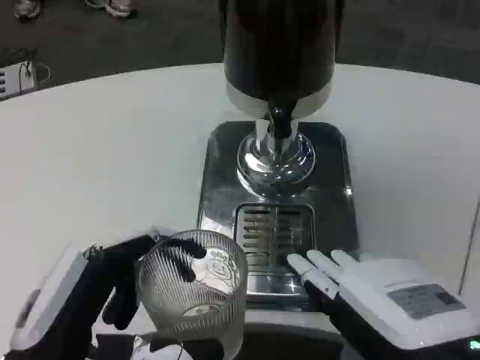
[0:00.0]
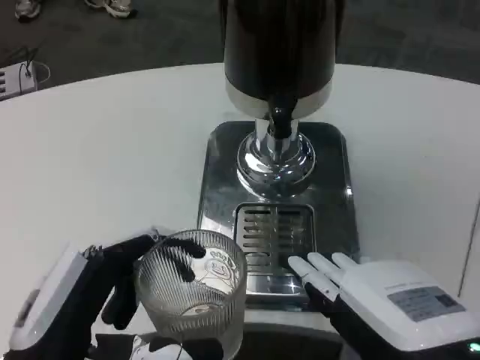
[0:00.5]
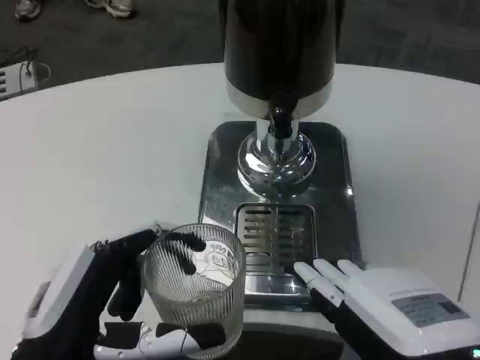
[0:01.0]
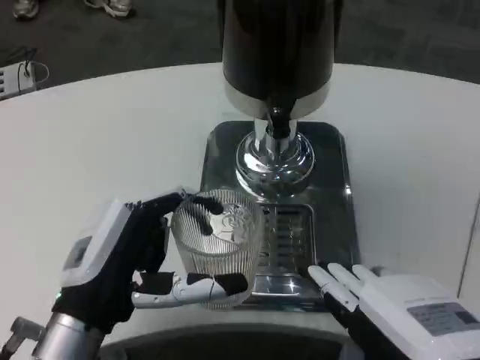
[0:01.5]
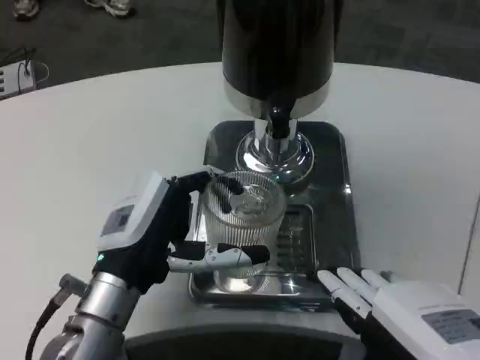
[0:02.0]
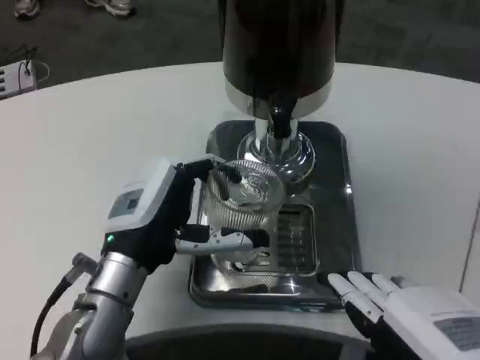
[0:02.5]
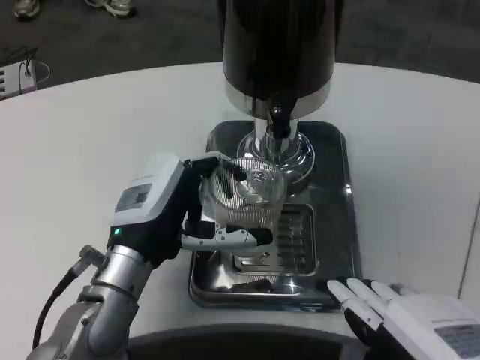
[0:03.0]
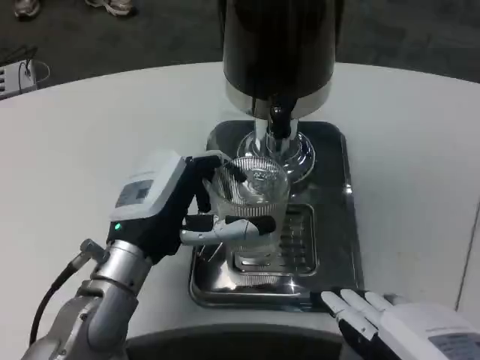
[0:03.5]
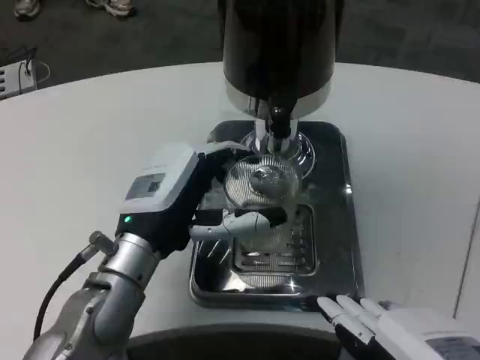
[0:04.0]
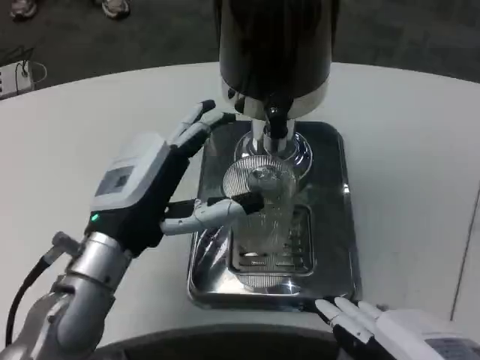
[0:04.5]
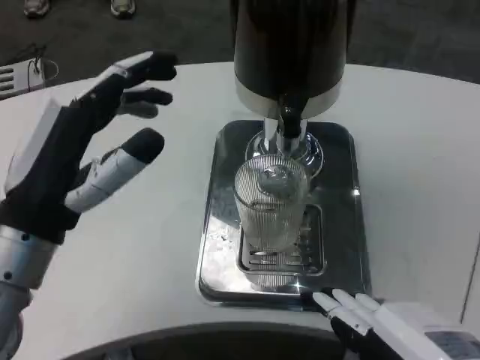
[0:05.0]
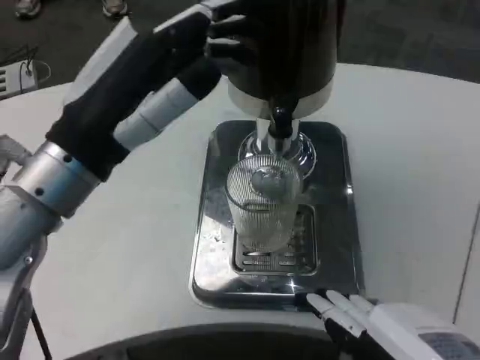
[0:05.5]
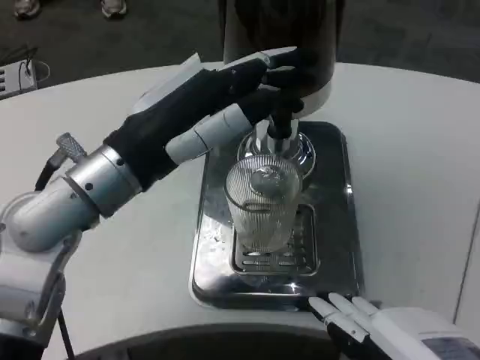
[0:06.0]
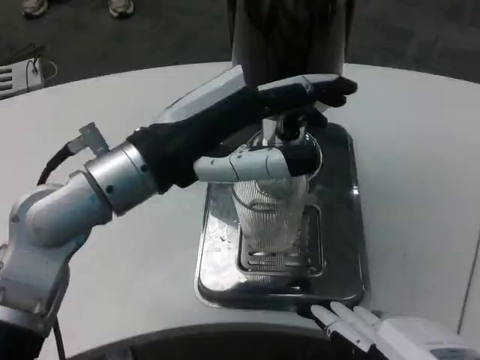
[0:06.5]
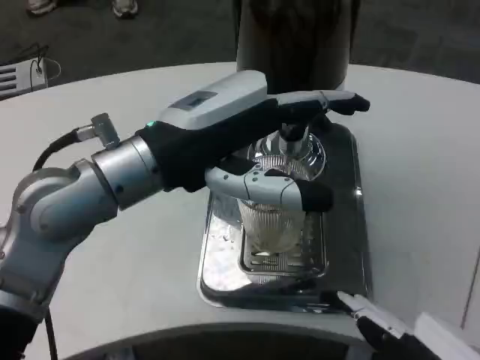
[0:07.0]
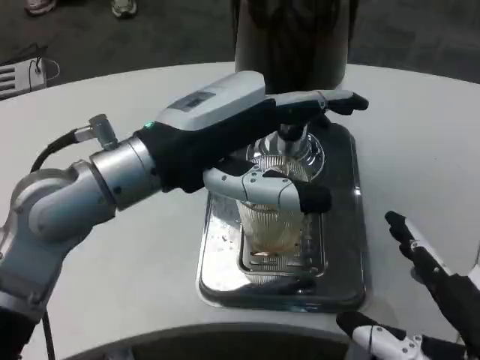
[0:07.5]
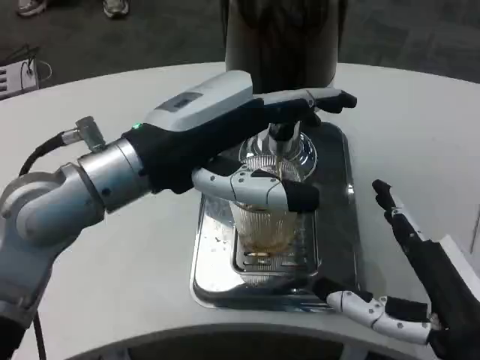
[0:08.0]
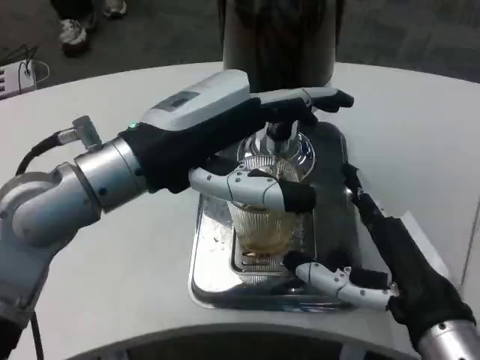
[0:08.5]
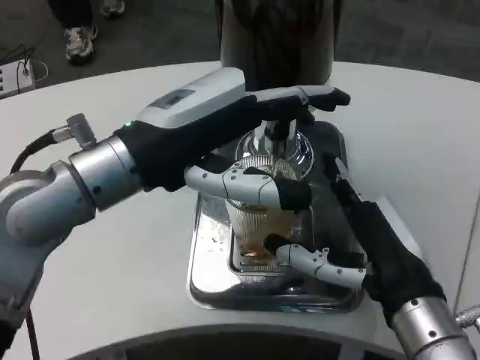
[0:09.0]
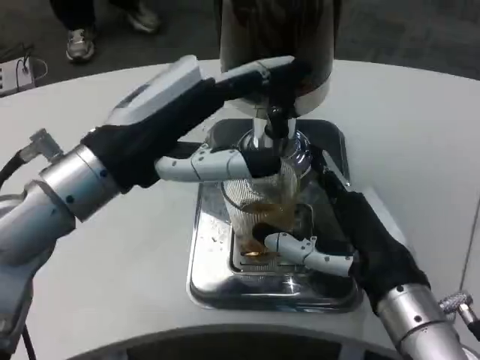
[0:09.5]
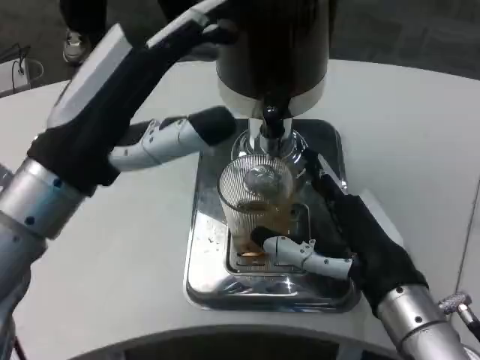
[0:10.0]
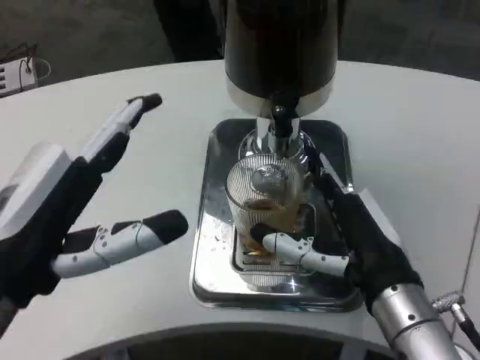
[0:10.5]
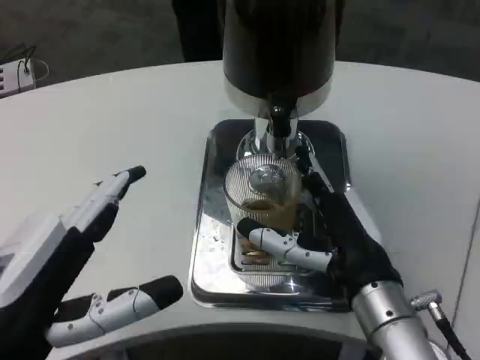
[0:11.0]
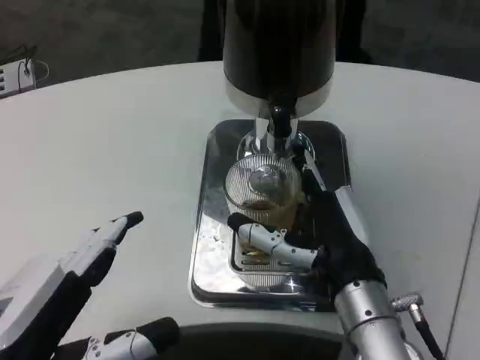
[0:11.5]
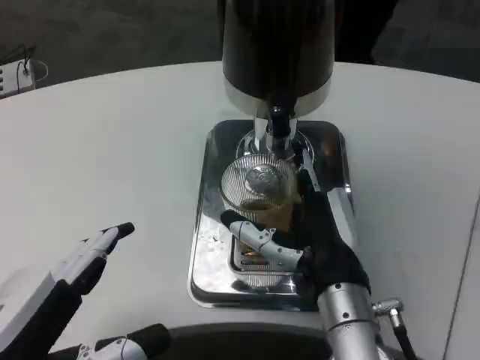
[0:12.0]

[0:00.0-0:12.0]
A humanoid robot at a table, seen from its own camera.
Task of the whole recording: Grasp the cup under the faucet to collect the drink, then remove the cup.
0:00.0 to 0:02.0: The left hand is displaced forward by some 10 cm.
0:04.0 to 0:06.0: The left hand moves upward, approximately 10 cm.
0:06.0 to 0:08.0: The right hand heads forward, covering roughly 5 cm.
0:08.0 to 0:10.0: The right hand goes about 5 cm forward; the left hand changes place by some 5 cm.
0:10.0 to 0:12.0: The right hand is displaced to the left by approximately 5 cm, while the left hand shifts about 15 cm backward and downward.

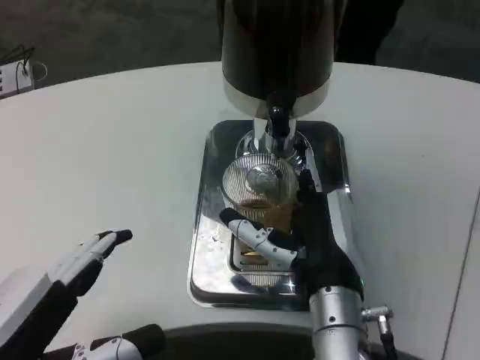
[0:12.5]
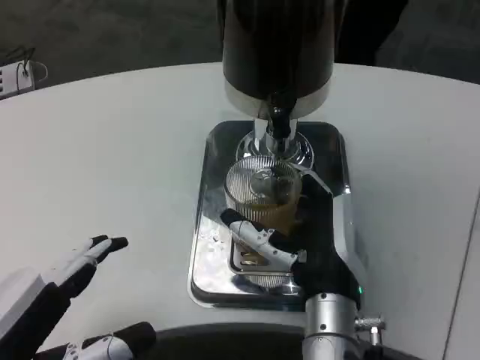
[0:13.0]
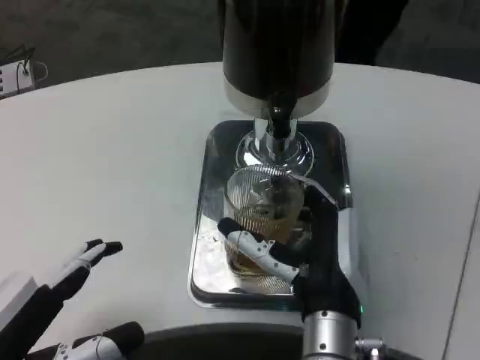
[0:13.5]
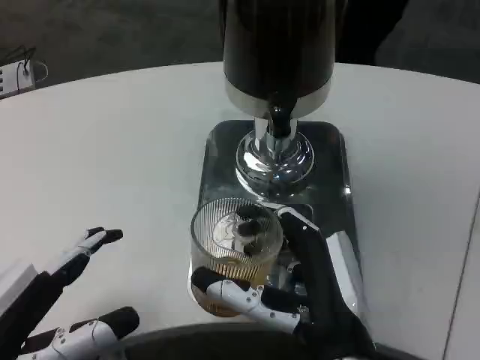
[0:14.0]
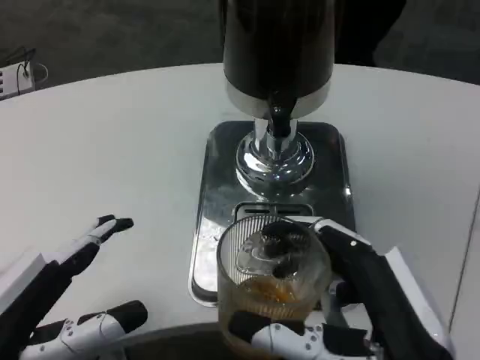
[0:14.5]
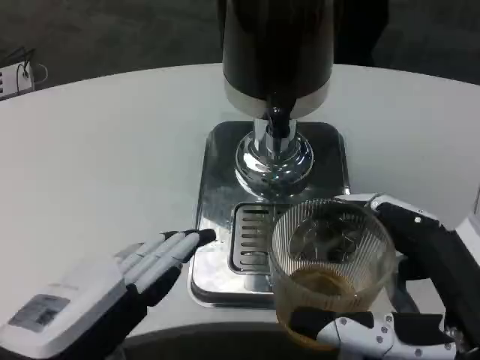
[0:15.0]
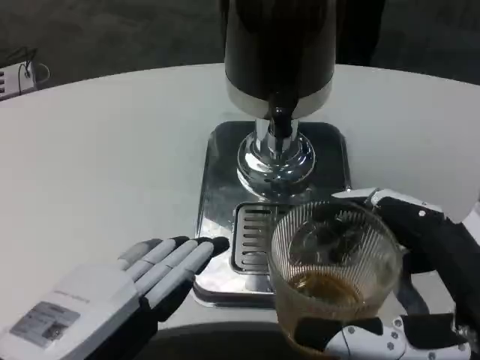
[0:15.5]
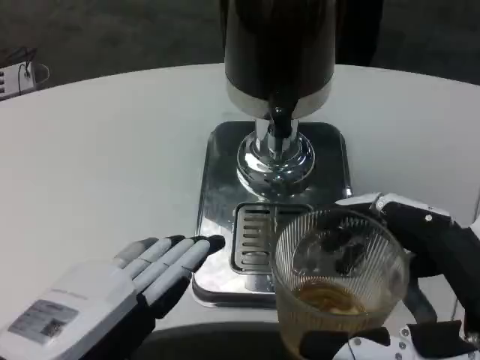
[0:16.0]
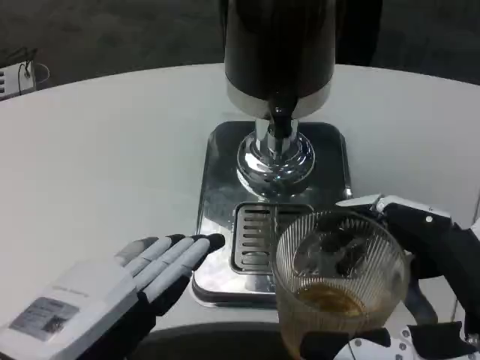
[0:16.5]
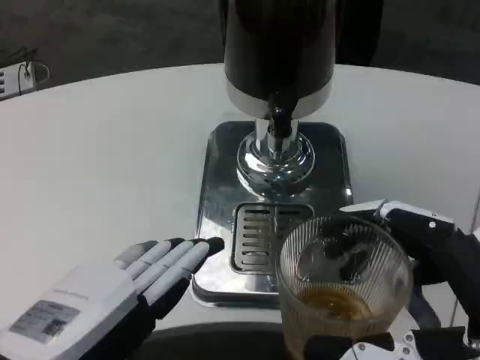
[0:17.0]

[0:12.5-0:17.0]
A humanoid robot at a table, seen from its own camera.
Task of the whole recording: Grasp the cup under the faucet to collect the drink, then remove the cup.
0:12.5 to 0:14.5: The right hand heads backward and to the right, covering roughly 15 cm.
0:14.5 to 0:17.0: The right hand travels to the right by approximately 5 cm, while the left hand ends up roughly 5 cm from where it was.

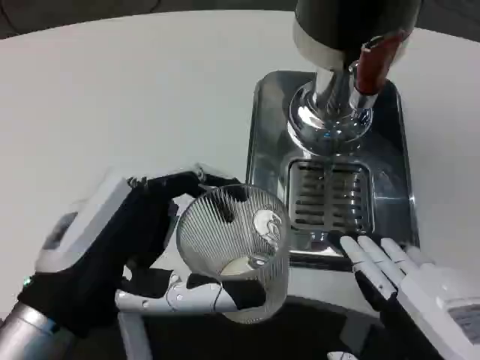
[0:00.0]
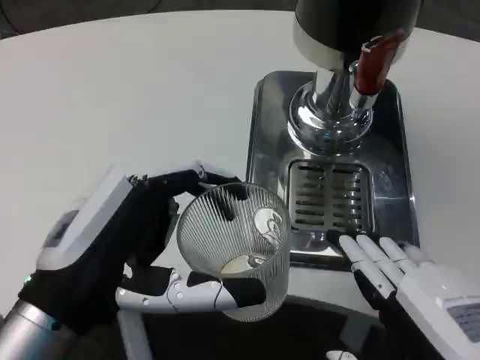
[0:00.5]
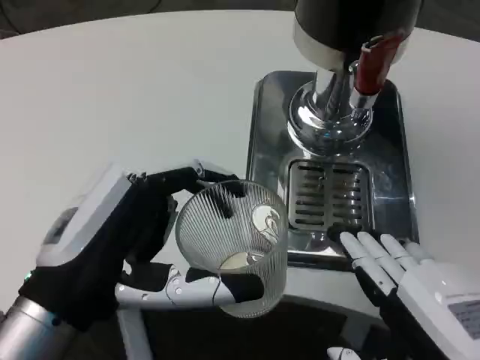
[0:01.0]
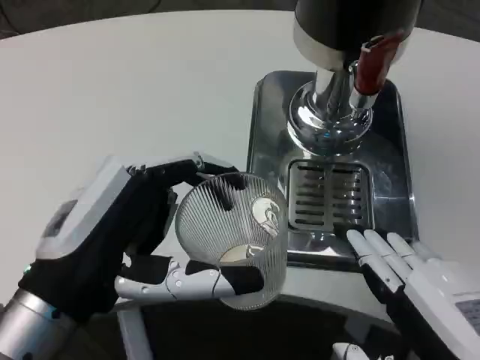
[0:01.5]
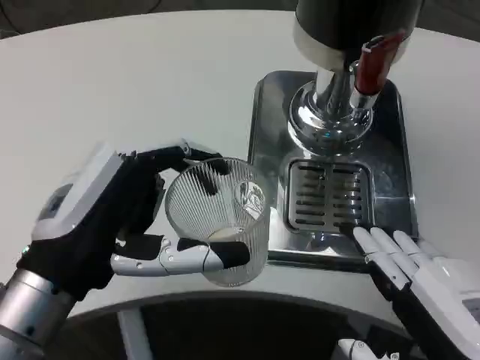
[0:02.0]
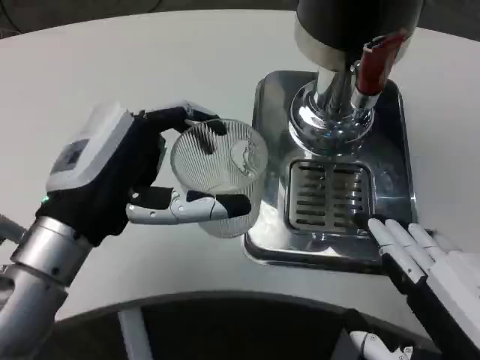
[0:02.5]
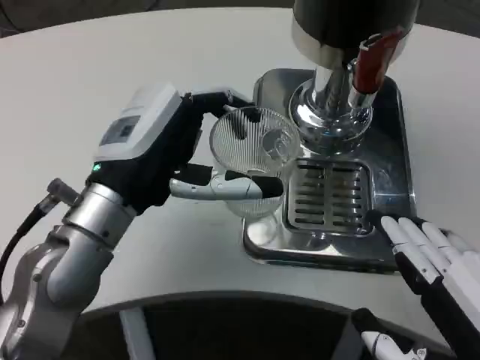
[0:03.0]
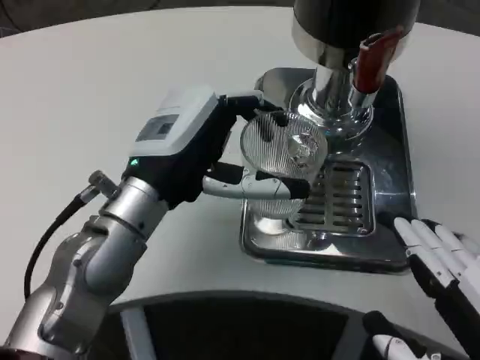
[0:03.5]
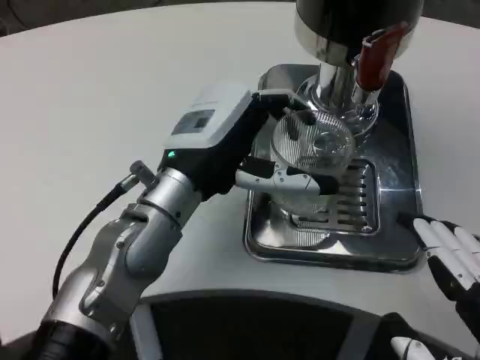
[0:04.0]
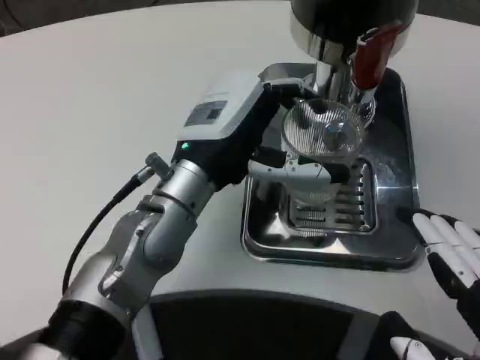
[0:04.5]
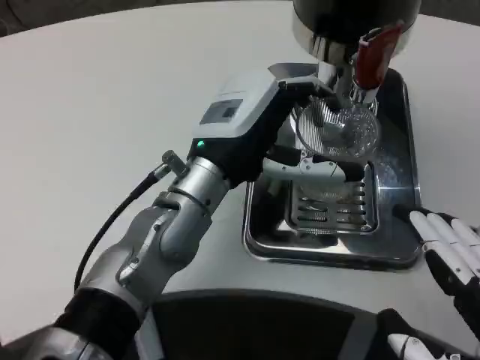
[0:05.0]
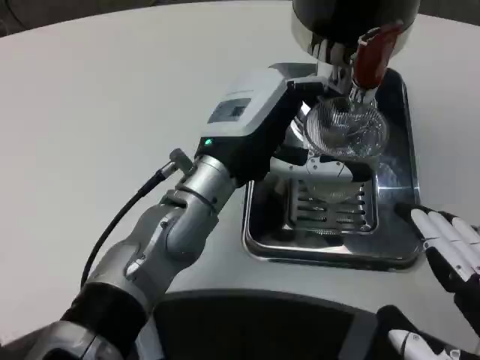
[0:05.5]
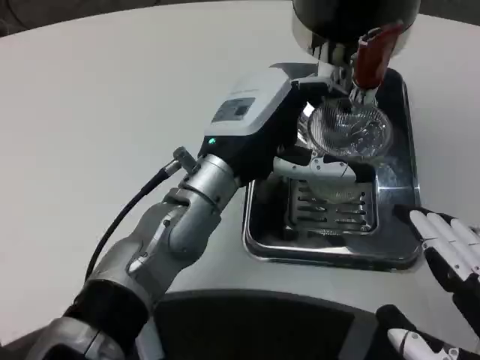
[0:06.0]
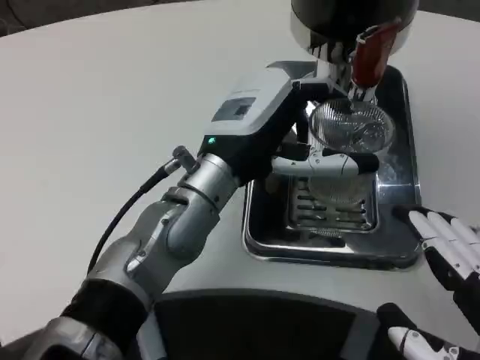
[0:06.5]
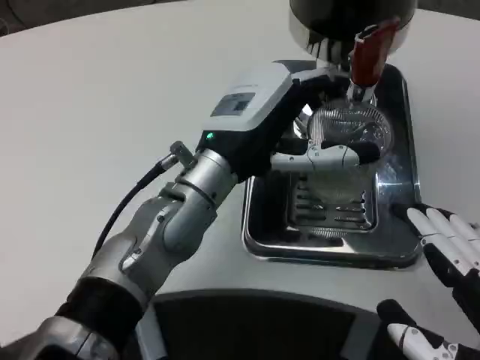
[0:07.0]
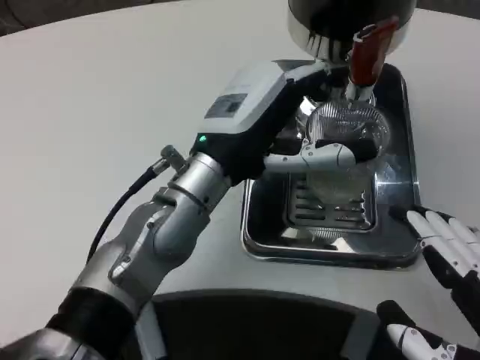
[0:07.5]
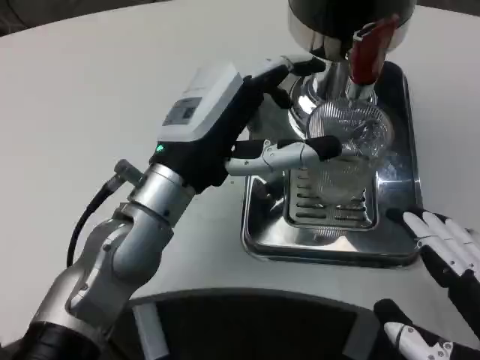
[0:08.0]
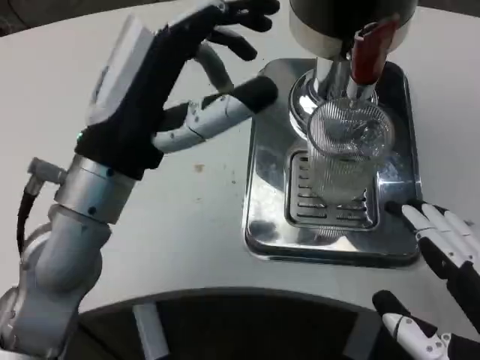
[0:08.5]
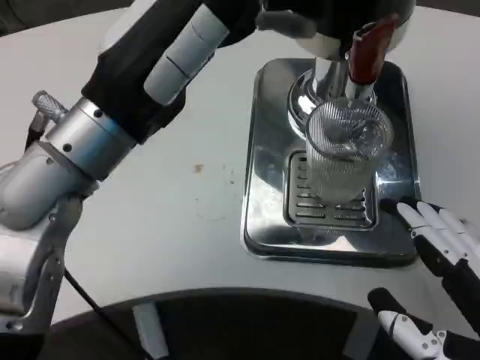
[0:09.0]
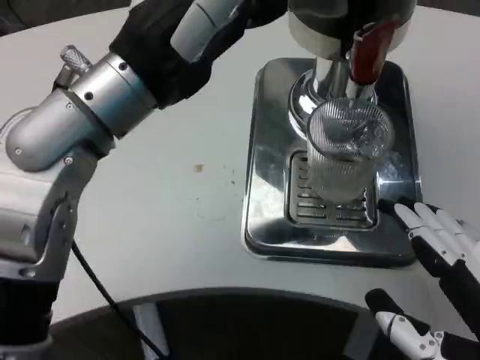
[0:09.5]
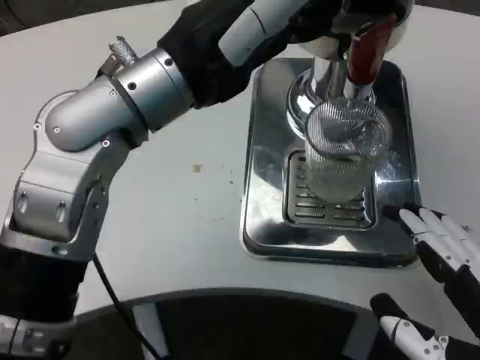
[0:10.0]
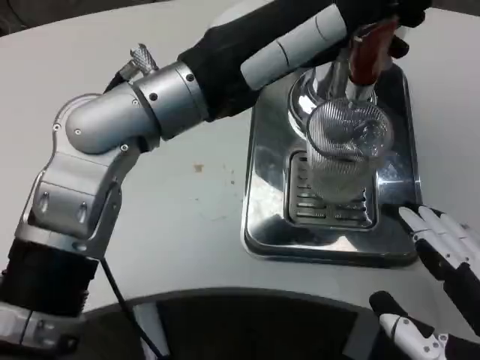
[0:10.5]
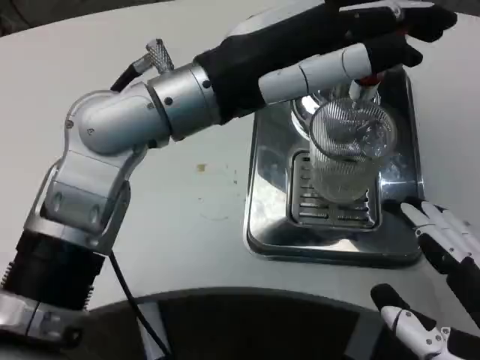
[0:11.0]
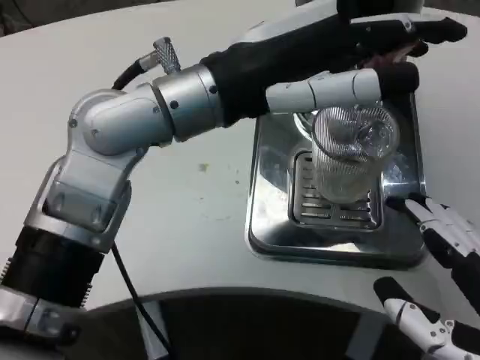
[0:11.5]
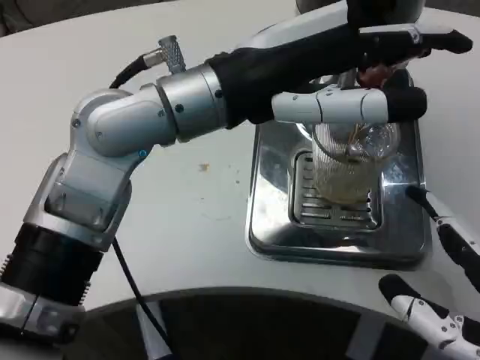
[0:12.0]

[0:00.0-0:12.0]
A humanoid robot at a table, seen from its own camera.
Task of the whole recording: Grasp the cup under the faucet to collect the drink, then remove the cup.
0:02.0 to 0:04.0: The left hand heads forward and to the right, covering roughly 15 cm.
0:06.0 to 0:08.0: The left hand ends up approximately 5 cm from where it was.
0:08.0 to 0:10.0: The left hand goes approximately 10 cm upward.
